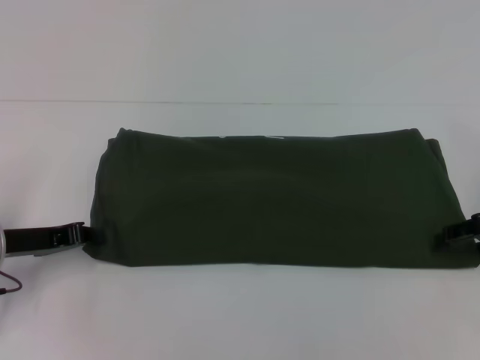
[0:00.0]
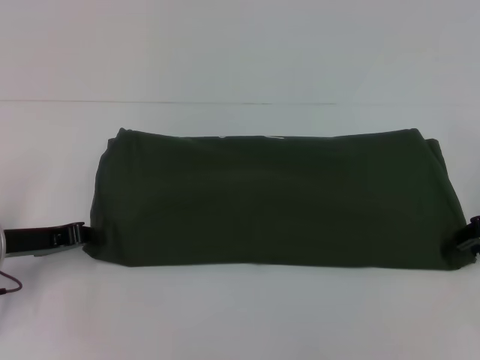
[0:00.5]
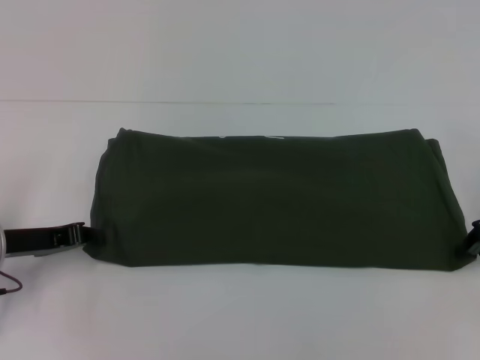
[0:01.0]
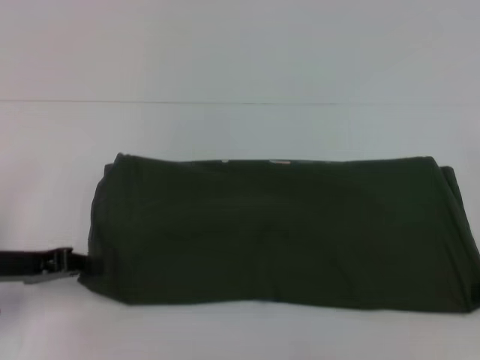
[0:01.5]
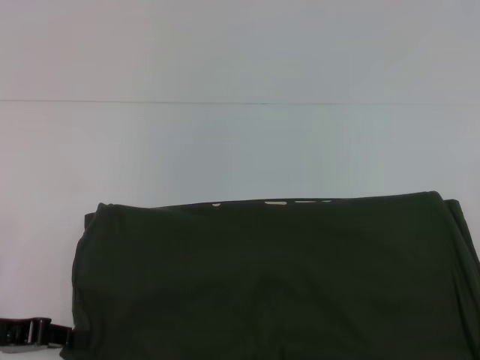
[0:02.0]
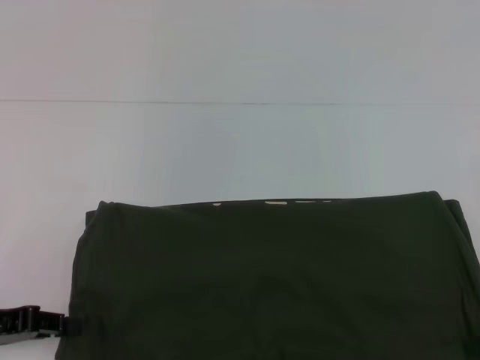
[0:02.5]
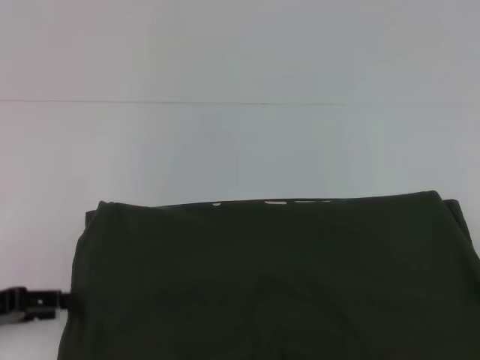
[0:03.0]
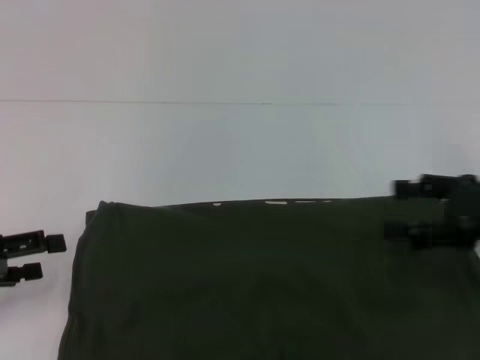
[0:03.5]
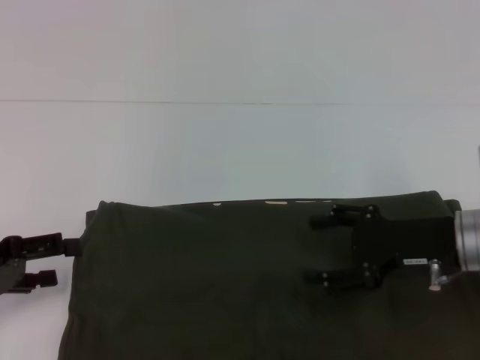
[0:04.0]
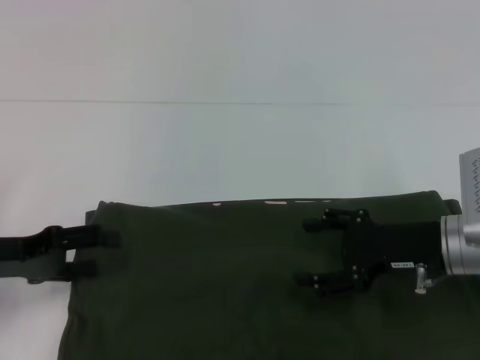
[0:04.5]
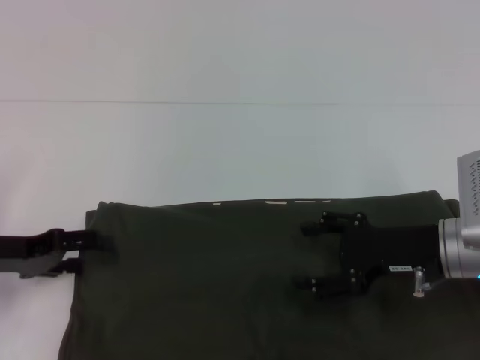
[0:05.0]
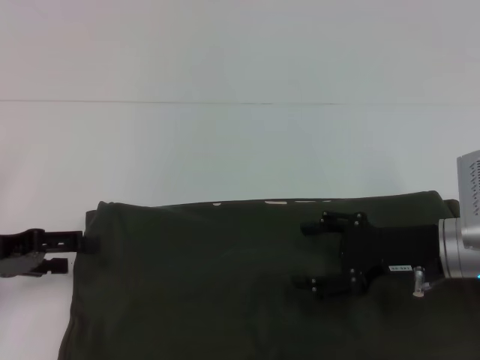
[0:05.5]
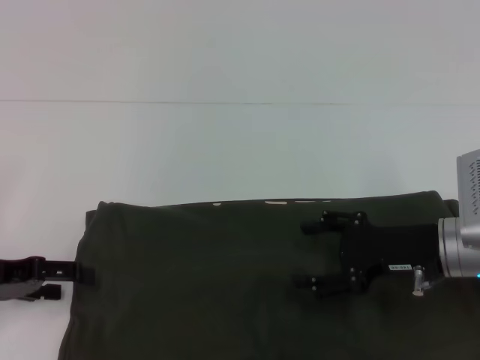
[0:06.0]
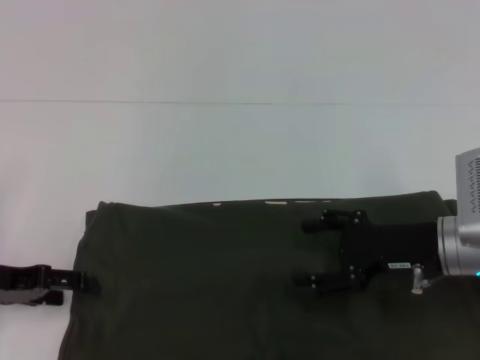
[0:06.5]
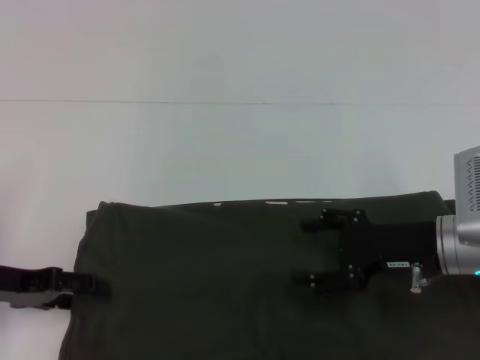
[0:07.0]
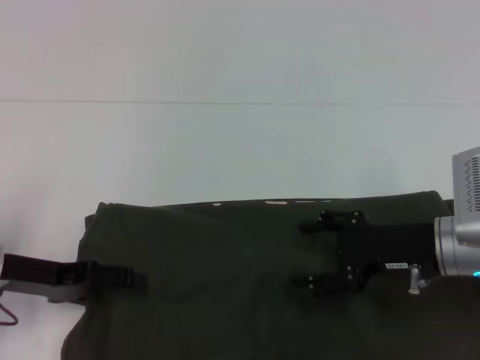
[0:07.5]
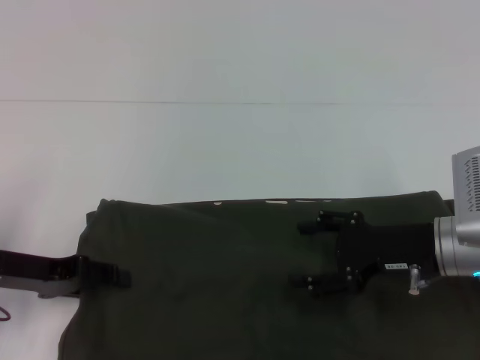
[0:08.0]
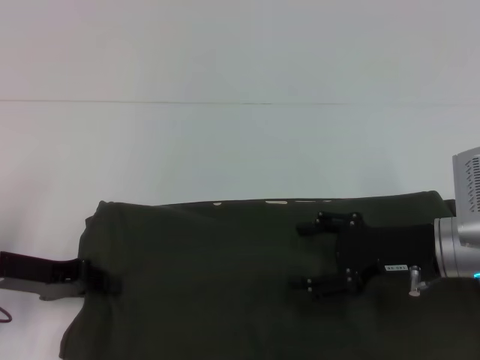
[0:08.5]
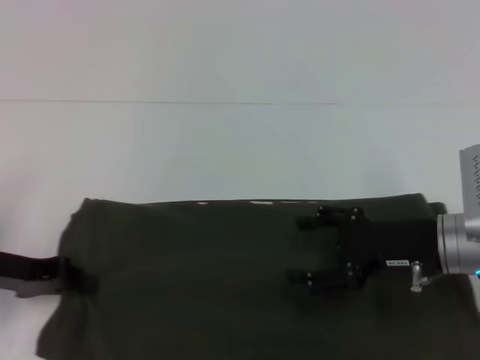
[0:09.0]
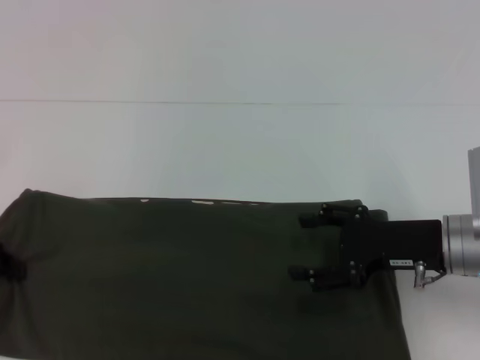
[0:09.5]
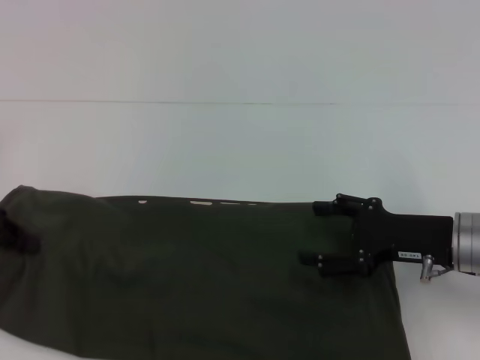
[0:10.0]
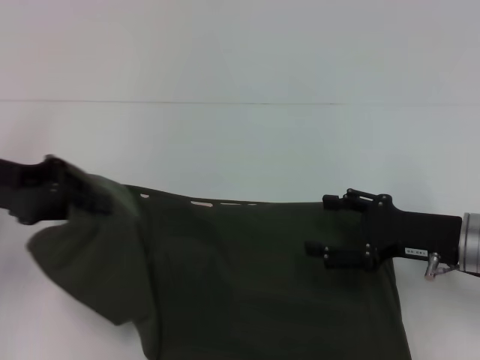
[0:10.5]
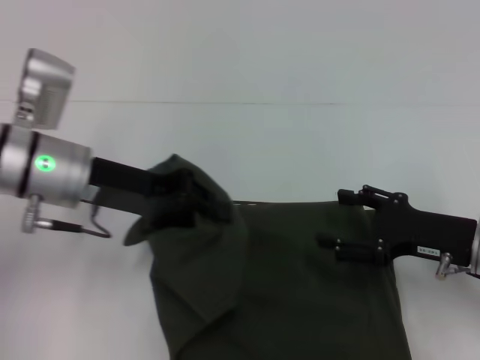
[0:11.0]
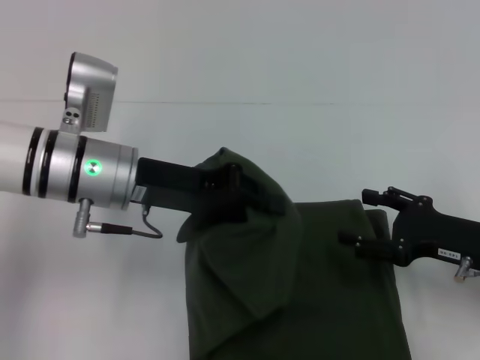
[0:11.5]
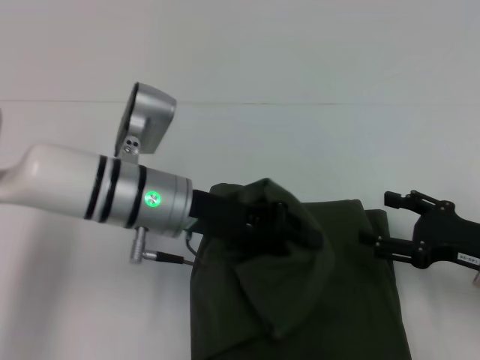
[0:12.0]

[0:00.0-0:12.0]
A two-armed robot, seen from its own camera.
0:00.0 to 0:02.0: Both grippers travel together backward, roughly 10 cm. The right gripper closes up.
0:02.0 to 0:04.0: The right gripper travels to the left by approximately 15 cm, and opens. The left gripper opens up.
0:04.0 to 0:06.0: The grippers move only a little.
0:06.0 to 0:08.0: The grippers stay close to where they were, moving slightly.
0:08.0 to 0:10.0: The left gripper travels upward and to the left by about 10 cm, and closes.
0:10.0 to 0:12.0: The right gripper heads to the right, covering some 5 cm, while the left gripper heads to the right, covering some 25 cm.

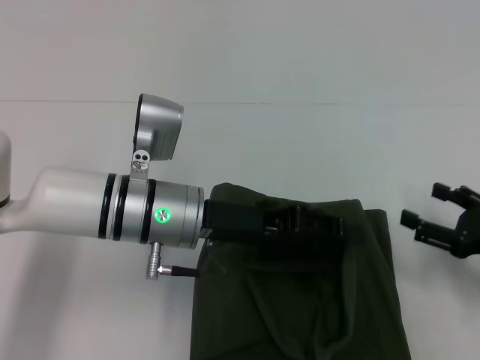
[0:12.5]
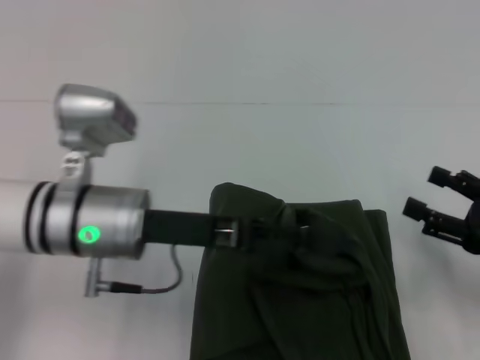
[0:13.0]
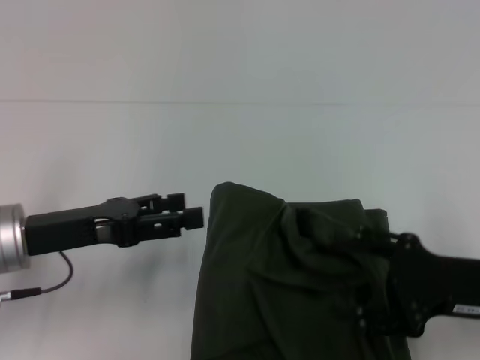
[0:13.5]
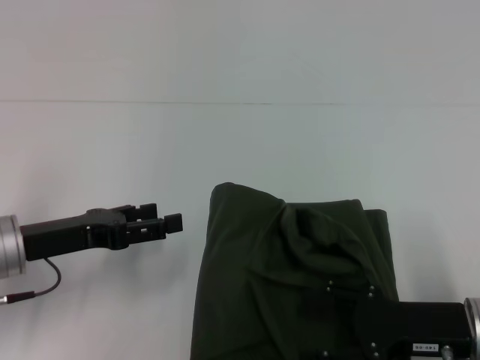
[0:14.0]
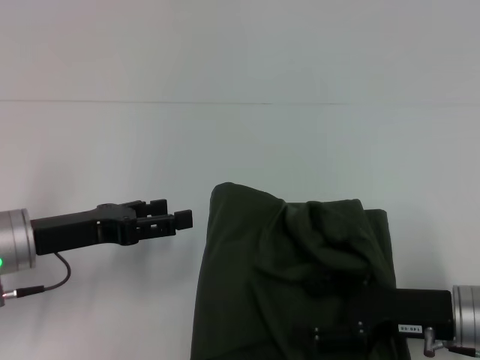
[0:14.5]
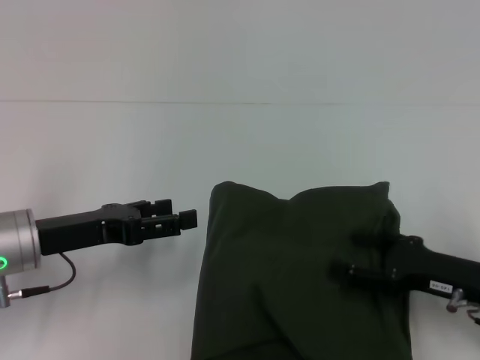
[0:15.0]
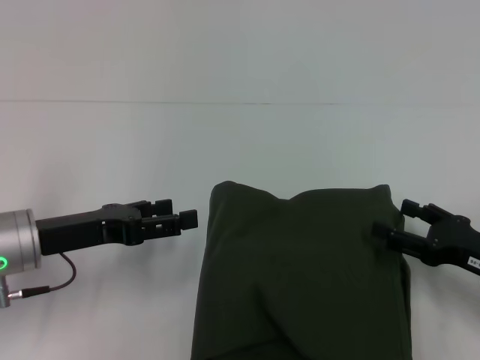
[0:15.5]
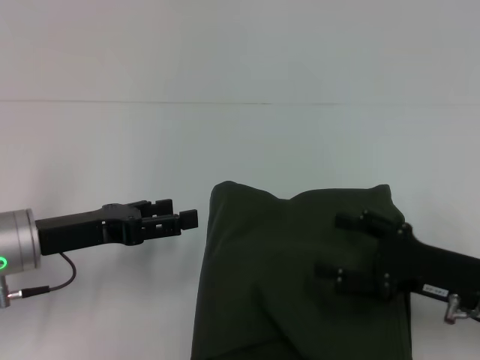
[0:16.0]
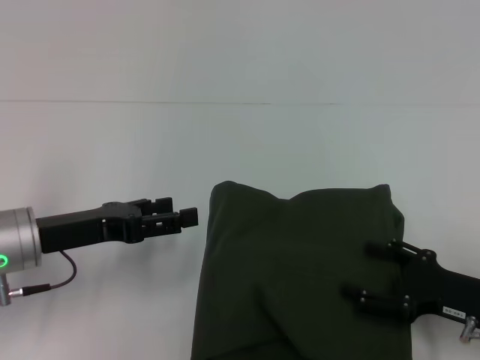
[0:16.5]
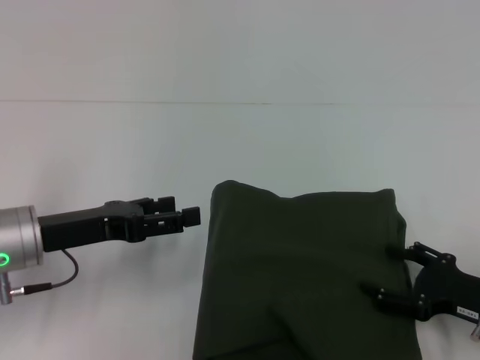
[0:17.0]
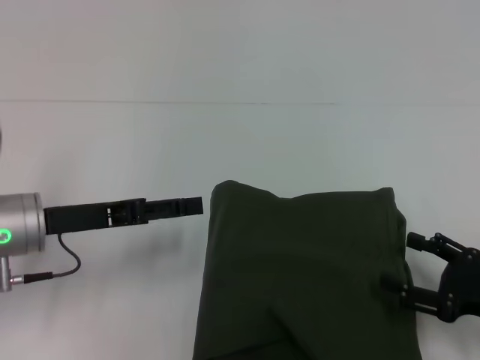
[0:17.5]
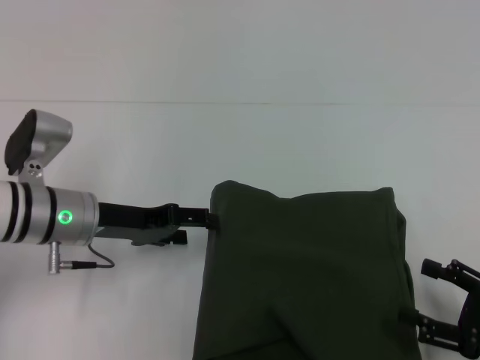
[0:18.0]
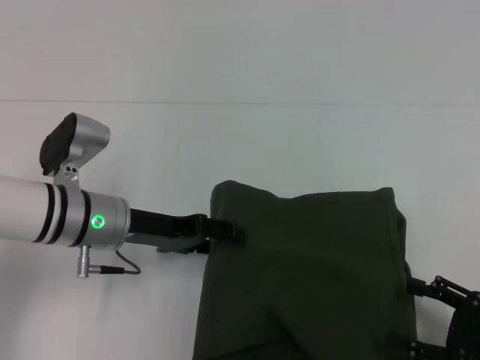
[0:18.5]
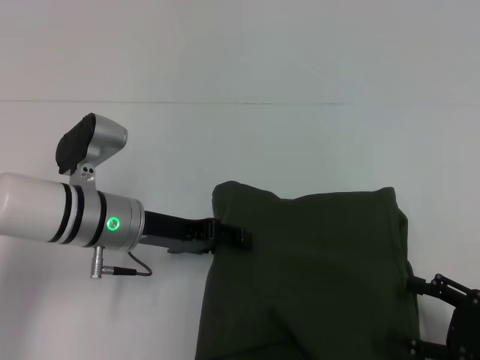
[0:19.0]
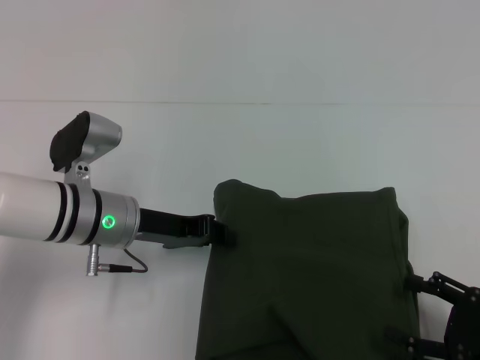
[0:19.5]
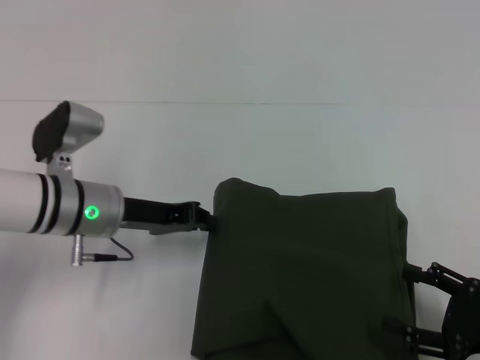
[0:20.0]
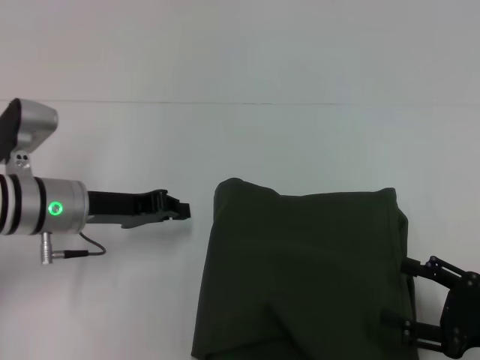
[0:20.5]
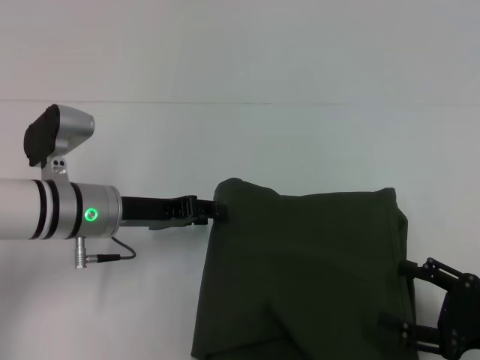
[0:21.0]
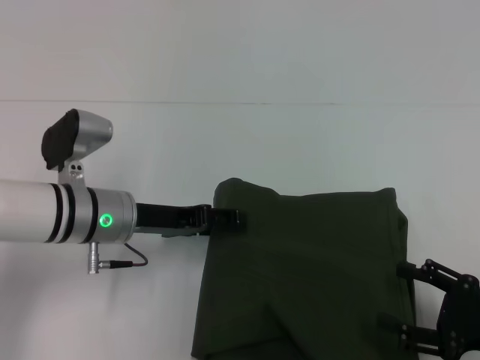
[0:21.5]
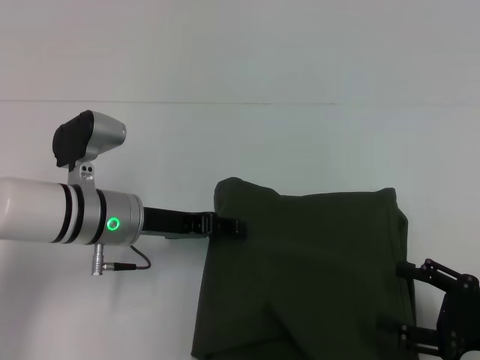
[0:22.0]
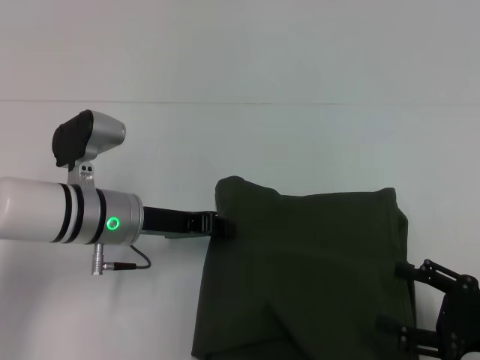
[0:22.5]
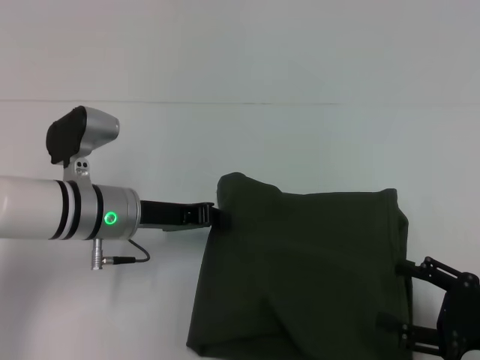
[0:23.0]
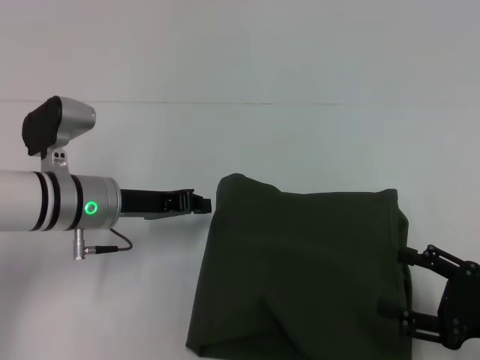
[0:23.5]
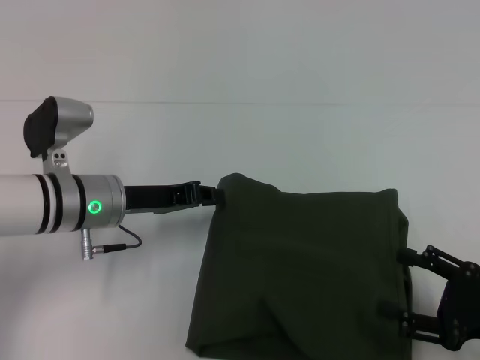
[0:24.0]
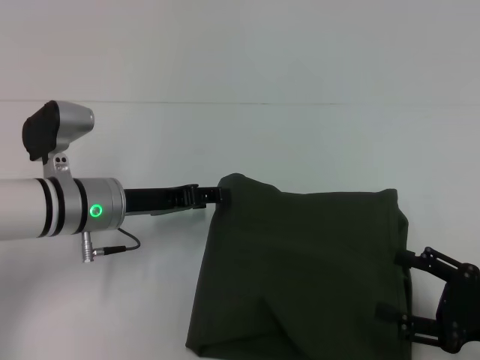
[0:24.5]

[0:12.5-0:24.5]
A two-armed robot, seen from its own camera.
0:12.5 to 0:14.5: The left gripper heads to the left, covering approximately 15 cm, and opens up. Meanwhile the right gripper heads to the left, covering about 10 cm.
0:16.5 to 0:18.5: The right gripper heads backward, covering about 5 cm; the left gripper moves to the right and forward, about 10 cm.
0:18.5 to 0:20.5: The left gripper closes.
0:20.5 to 0:22.5: The left gripper moves to the right, roughly 5 cm, and opens, then closes again.
0:22.5 to 0:24.5: There are only small adjustments of the grippers.

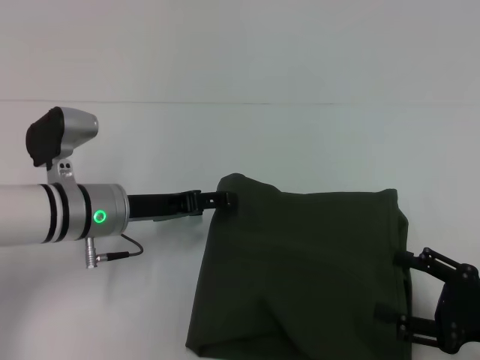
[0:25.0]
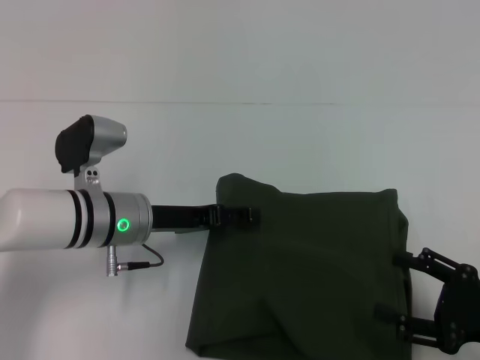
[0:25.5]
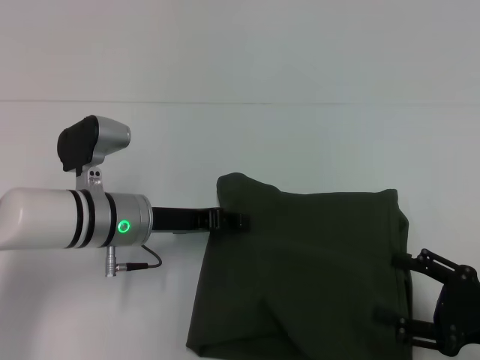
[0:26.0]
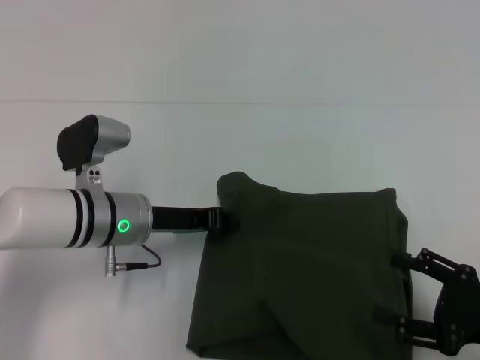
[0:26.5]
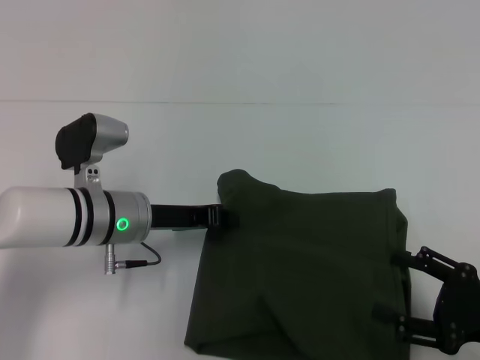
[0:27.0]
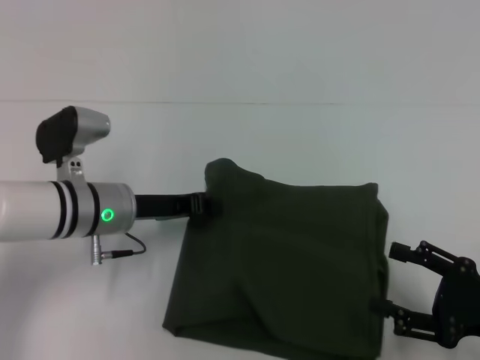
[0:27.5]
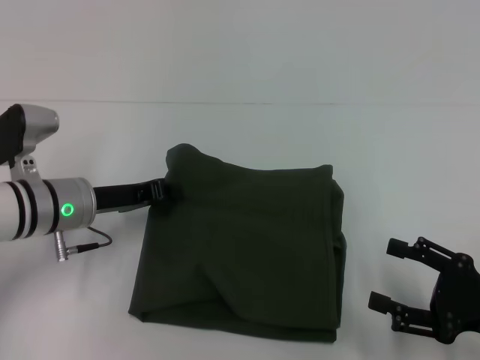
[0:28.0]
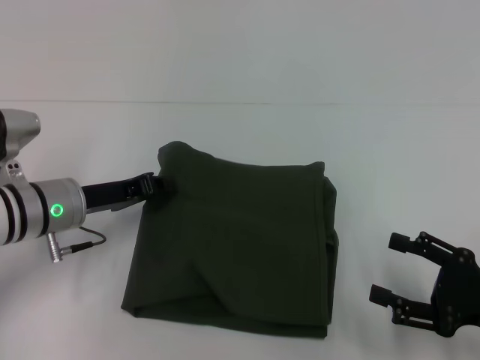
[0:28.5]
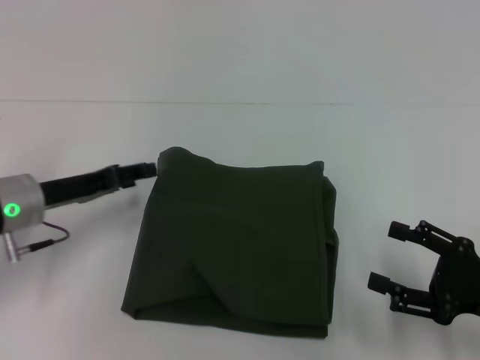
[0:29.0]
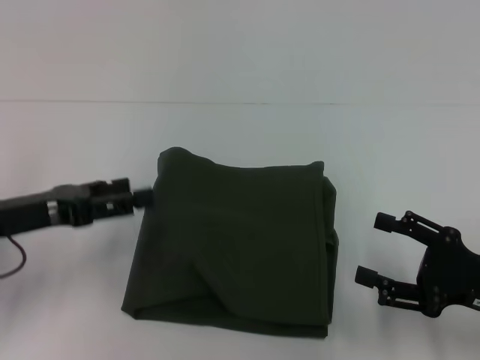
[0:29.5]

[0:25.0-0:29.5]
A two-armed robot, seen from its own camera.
0:25.0 to 0:27.0: The left gripper closes its fingers.
0:27.0 to 0:29.5: The left gripper shifts approximately 15 cm to the left, backward and upward, and opens up.
